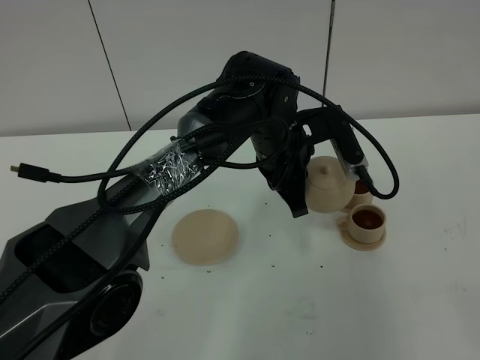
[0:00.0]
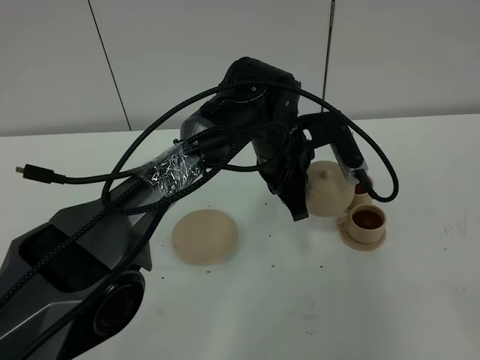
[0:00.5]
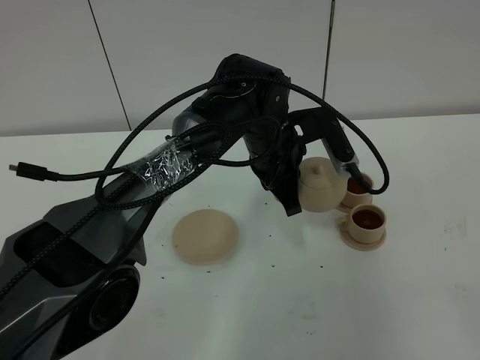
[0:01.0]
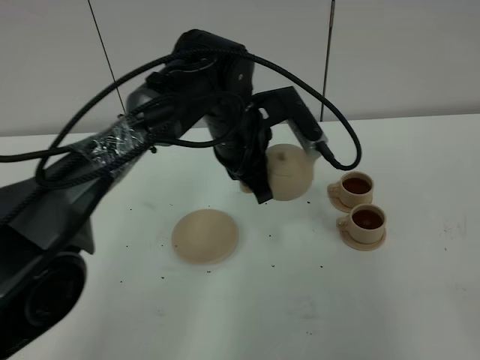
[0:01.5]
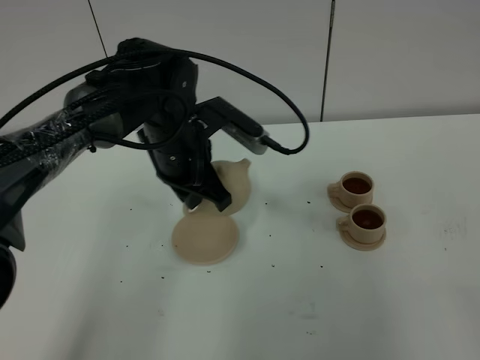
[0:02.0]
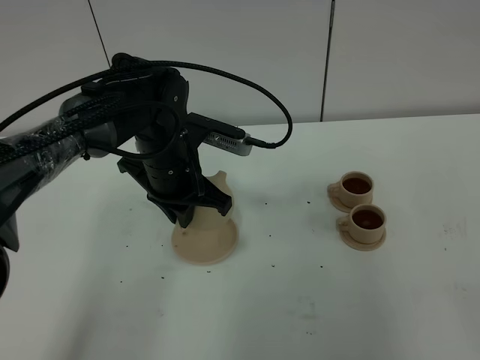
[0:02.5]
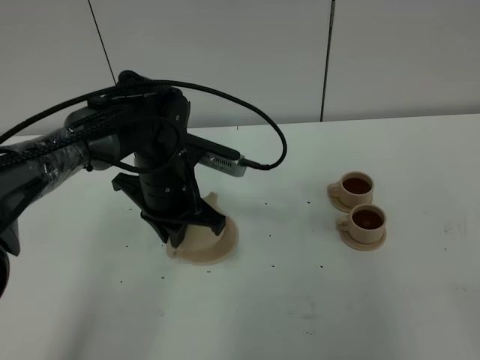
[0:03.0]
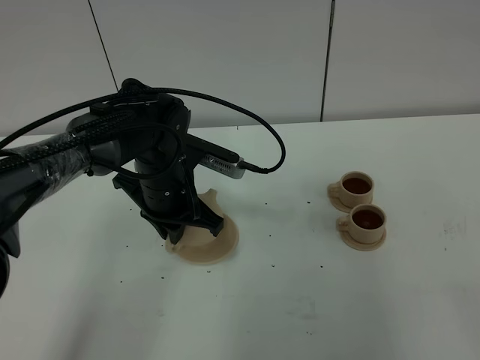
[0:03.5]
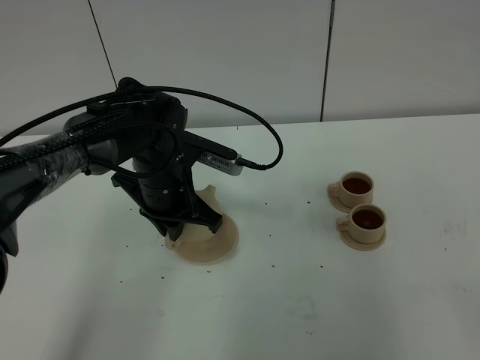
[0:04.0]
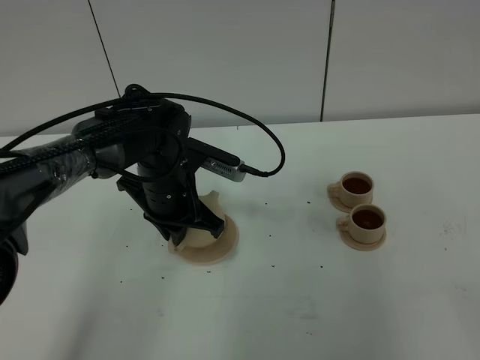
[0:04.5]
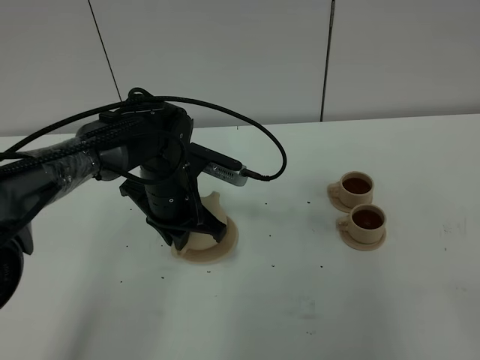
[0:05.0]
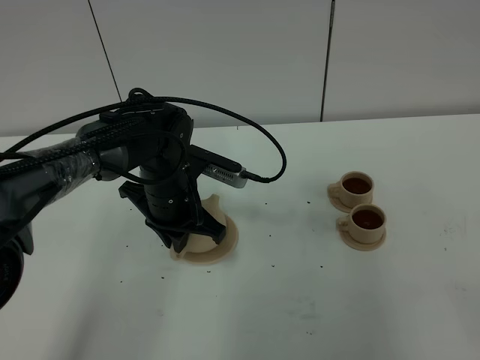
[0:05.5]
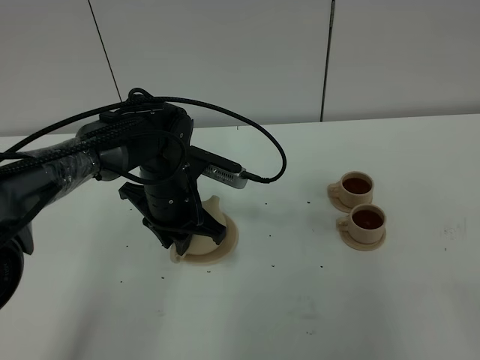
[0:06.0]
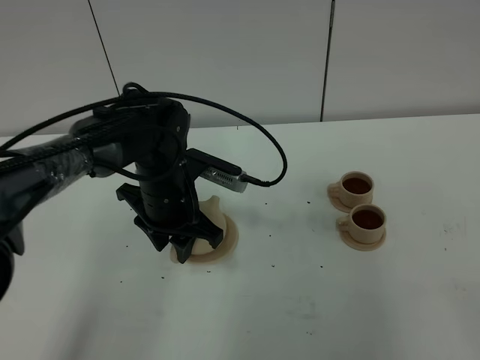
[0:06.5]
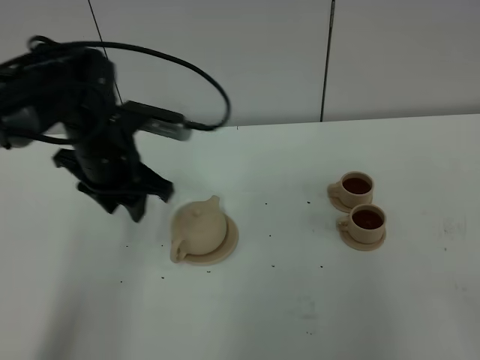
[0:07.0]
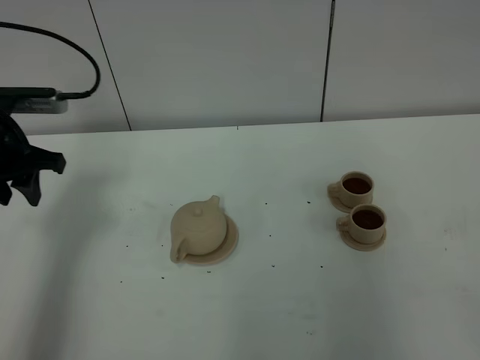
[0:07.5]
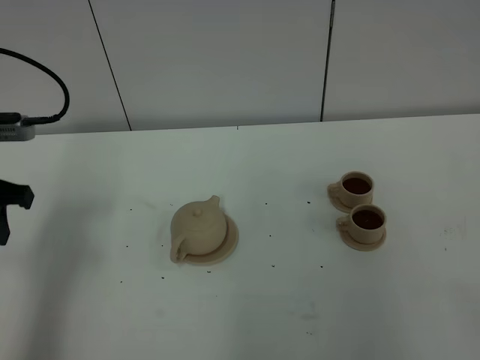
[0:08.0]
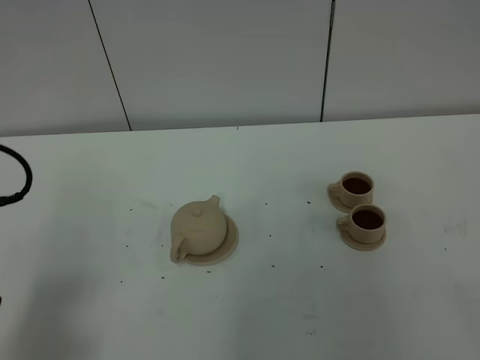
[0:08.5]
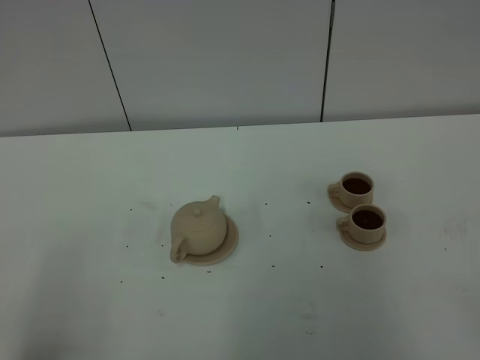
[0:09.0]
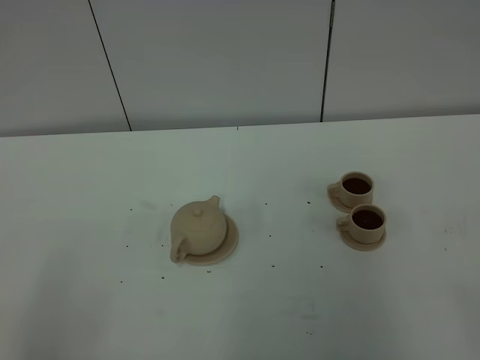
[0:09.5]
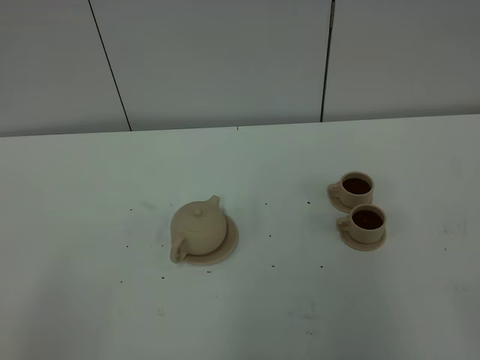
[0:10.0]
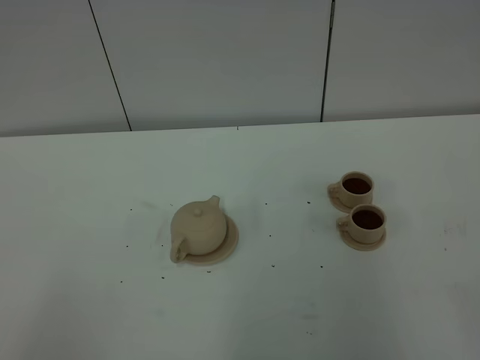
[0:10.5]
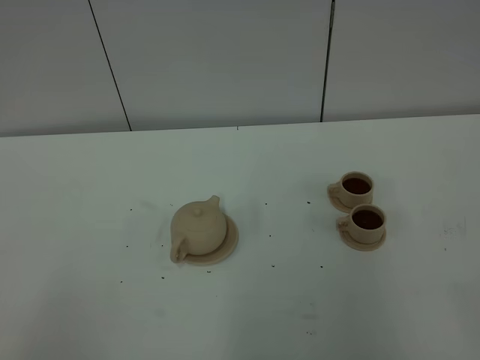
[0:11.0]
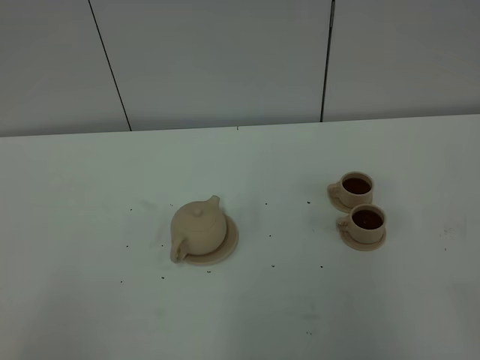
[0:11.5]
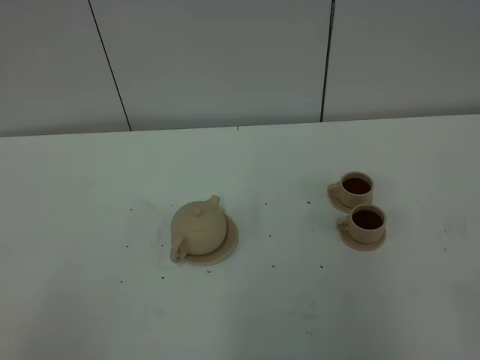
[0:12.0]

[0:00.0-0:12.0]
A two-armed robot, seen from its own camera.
Task of the whole recording: grasp the brown teapot and pour the tea into the two brown teacups one by one, put the brown teapot back in its original place.
0:00.0 to 0:02.0: The left gripper shifts some 10 cm to the left.
0:02.0 to 0:04.0: The left gripper moves approximately 5 cm.
0:04.0 to 0:06.0: The left gripper opens up.
0:06.0 to 0:08.0: The left gripper shifts roughly 25 cm to the left and upward, and opens.
0:08.0 to 0:10.0: The left gripper heads backward, covering about 30 cm.
